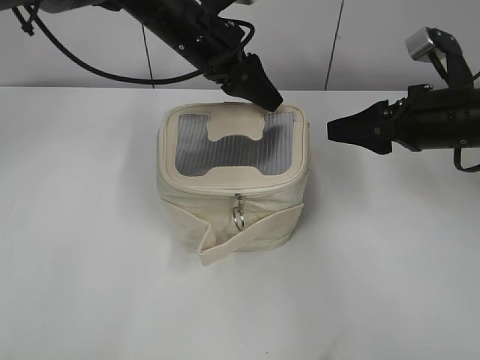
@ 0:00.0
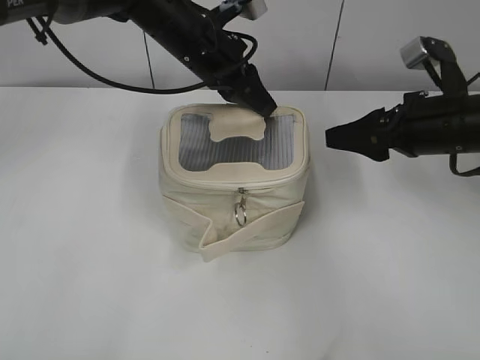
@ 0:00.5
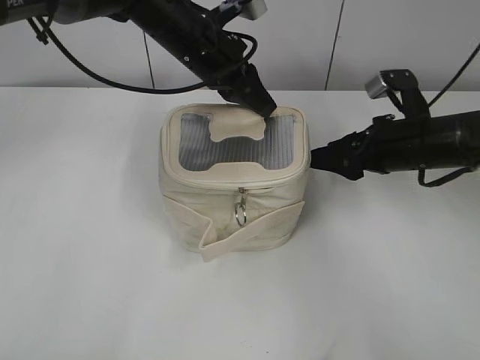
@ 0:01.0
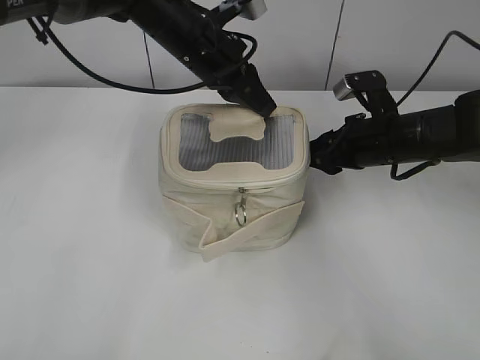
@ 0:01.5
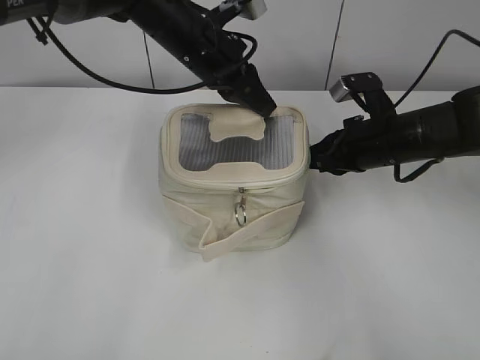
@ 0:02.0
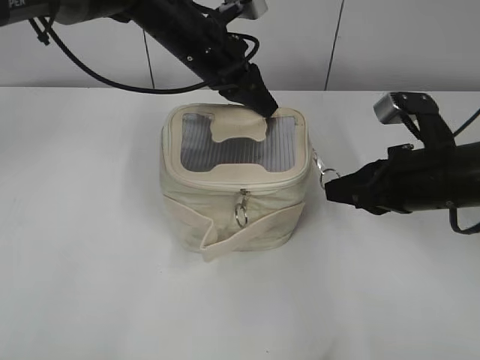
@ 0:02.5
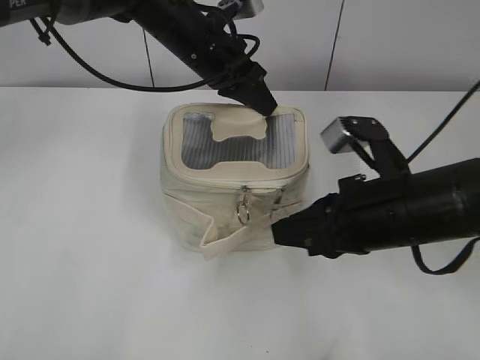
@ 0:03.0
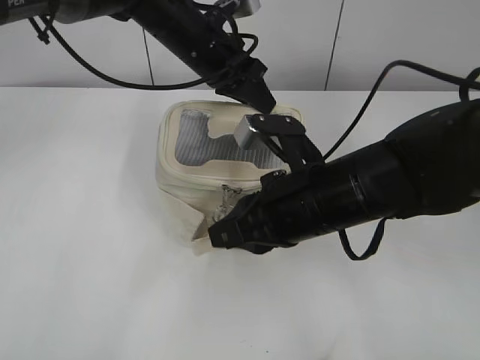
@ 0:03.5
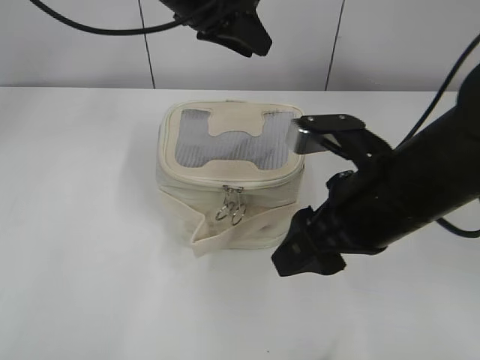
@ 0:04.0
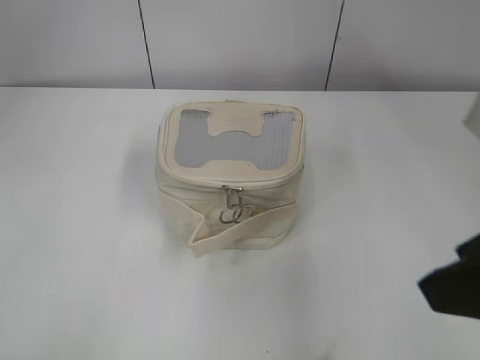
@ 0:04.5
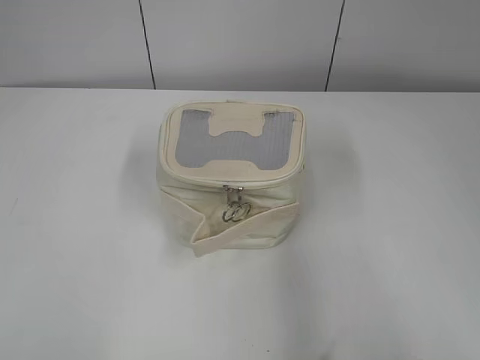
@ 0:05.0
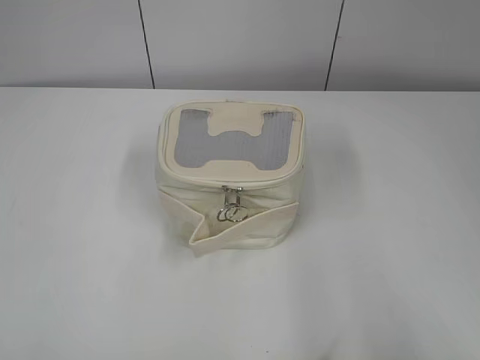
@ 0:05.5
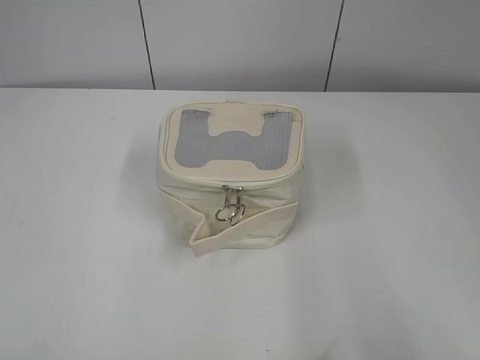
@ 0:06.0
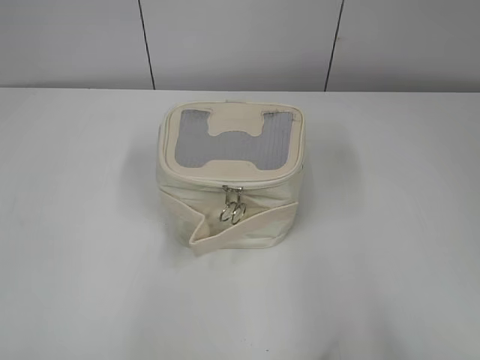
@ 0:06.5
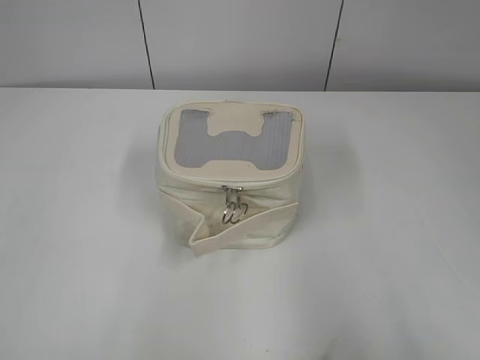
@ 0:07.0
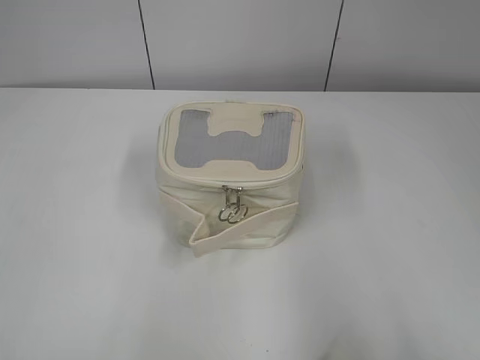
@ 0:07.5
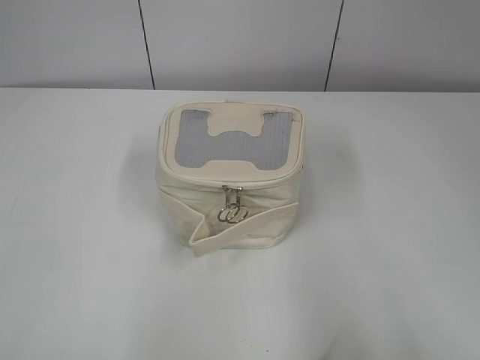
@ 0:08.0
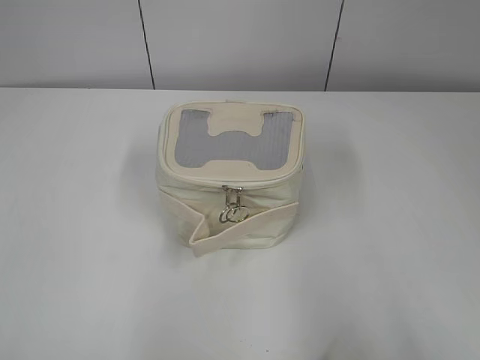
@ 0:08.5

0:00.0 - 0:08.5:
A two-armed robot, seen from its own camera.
Step, 0:00.0 - 0:03.0: Zip up the bag with your right hand.
0:00.0 - 0:02.0: The left gripper closes. The right gripper shifts approximately 5 cm downward, and closes up.
0:02.0 - 0:04.0: The left gripper is displaced upward by about 5 cm, and opens its fingers; the right gripper goes roughly 15 cm backward, upward and to the left, and opens its fingers.
0:04.0 - 0:06.5: The right gripper is displaced backward, to the right and upward by about 30 cm; the left gripper travels backward and to the left by about 50 cm.
